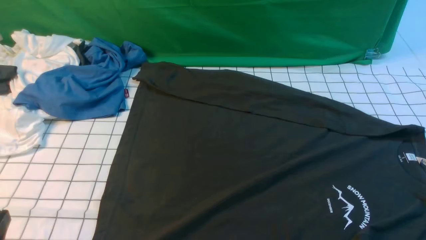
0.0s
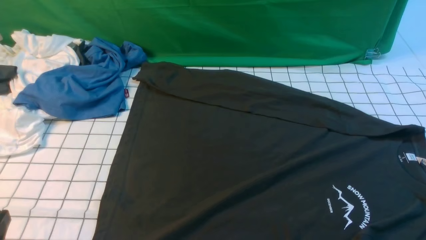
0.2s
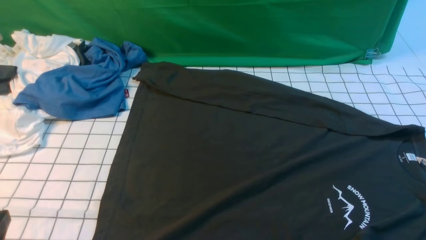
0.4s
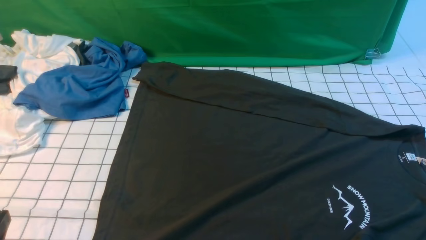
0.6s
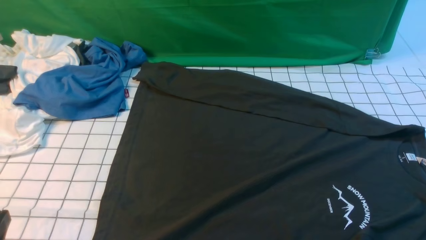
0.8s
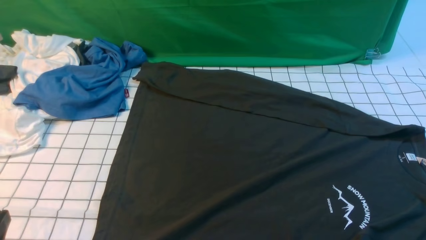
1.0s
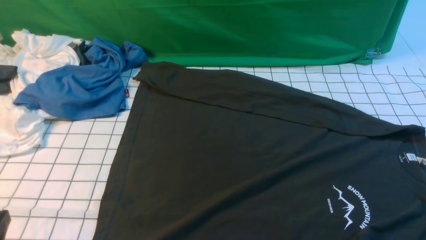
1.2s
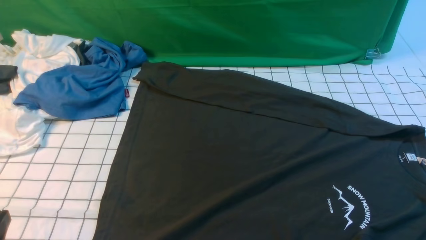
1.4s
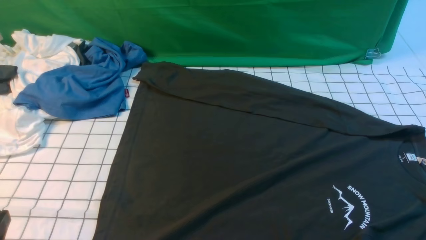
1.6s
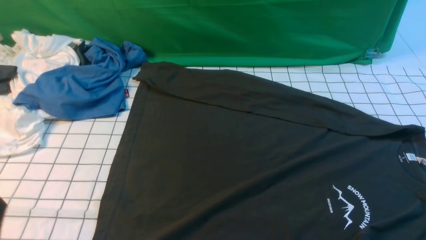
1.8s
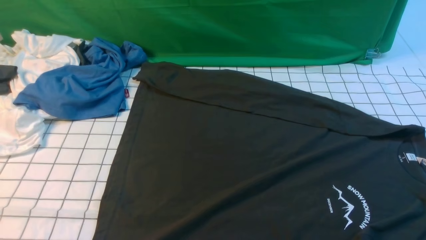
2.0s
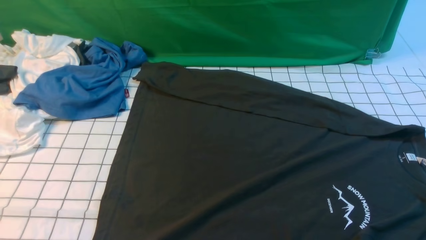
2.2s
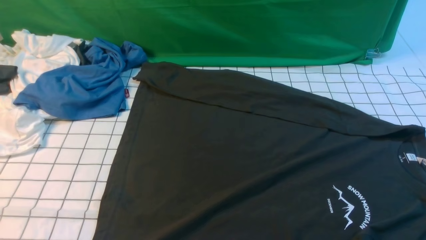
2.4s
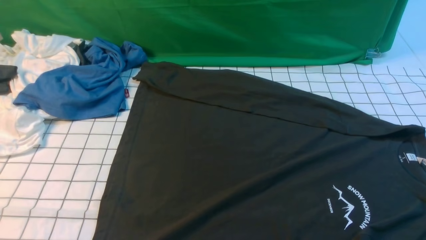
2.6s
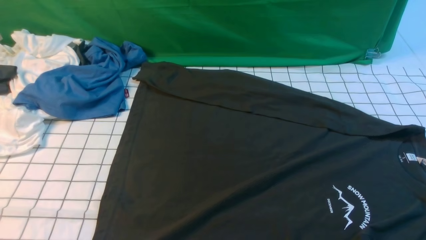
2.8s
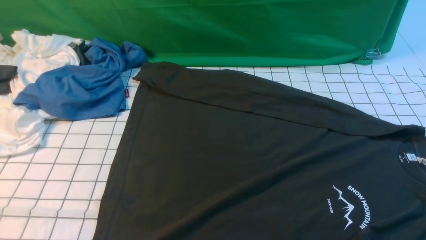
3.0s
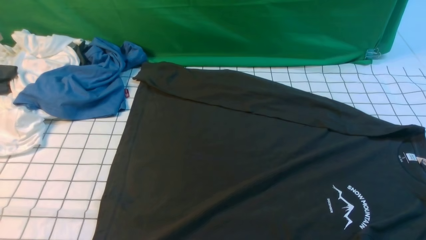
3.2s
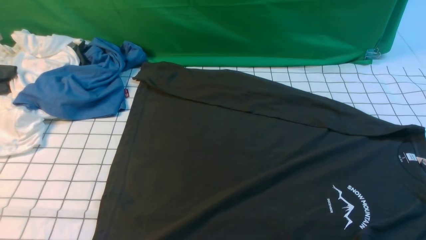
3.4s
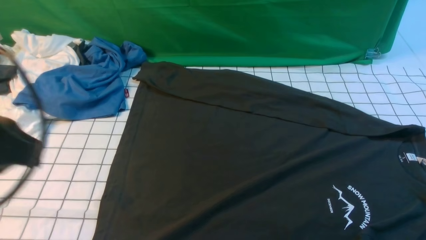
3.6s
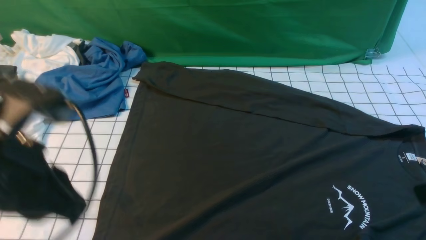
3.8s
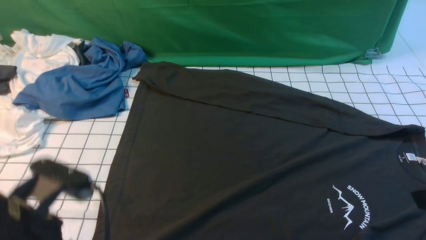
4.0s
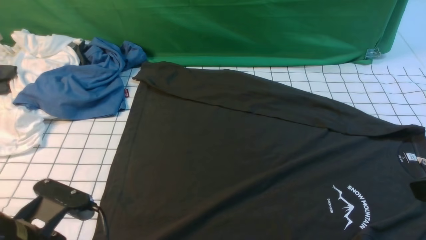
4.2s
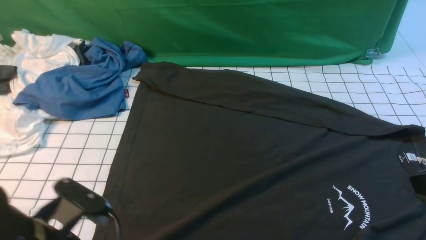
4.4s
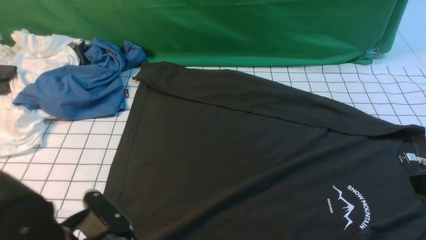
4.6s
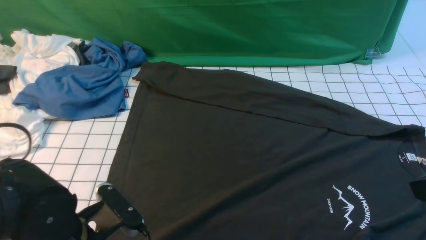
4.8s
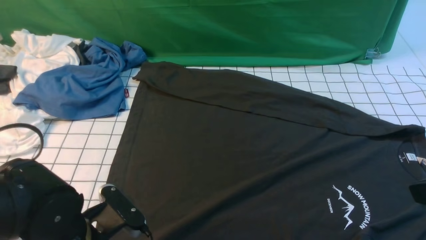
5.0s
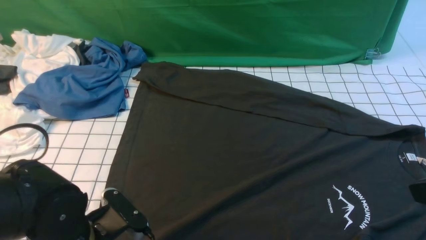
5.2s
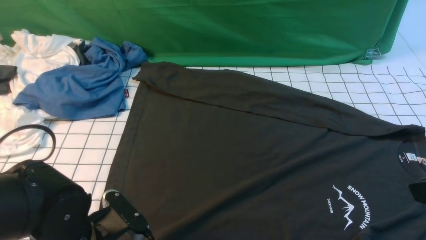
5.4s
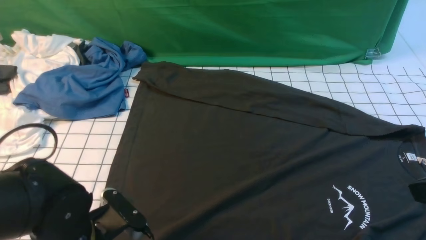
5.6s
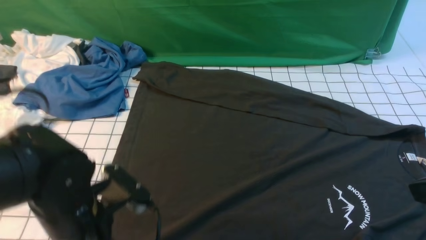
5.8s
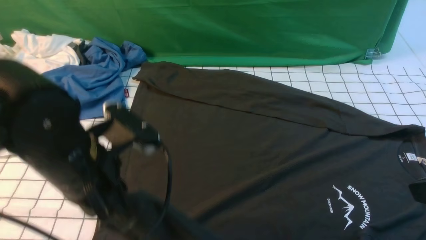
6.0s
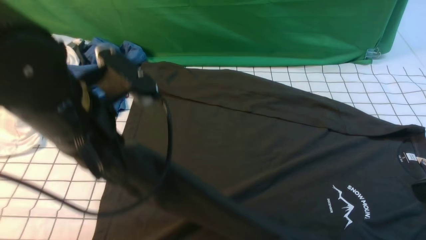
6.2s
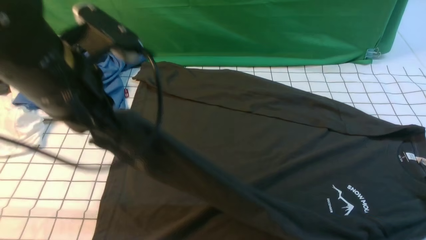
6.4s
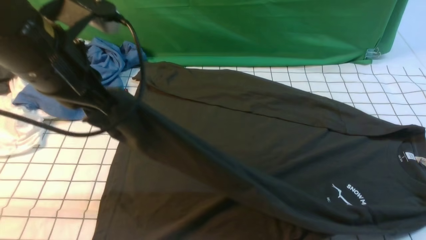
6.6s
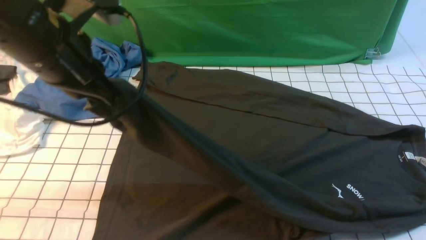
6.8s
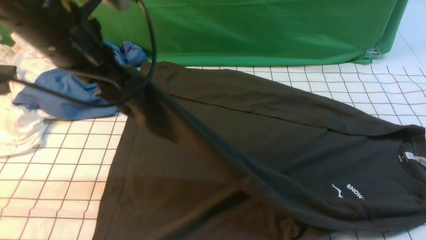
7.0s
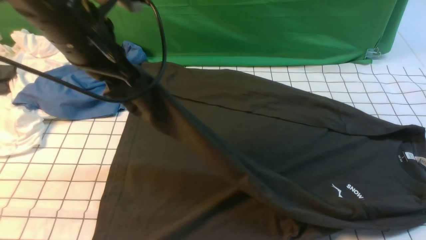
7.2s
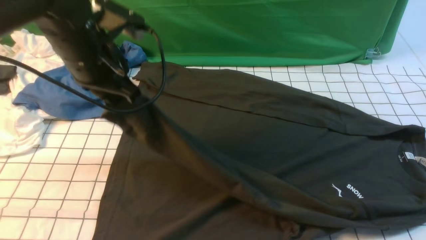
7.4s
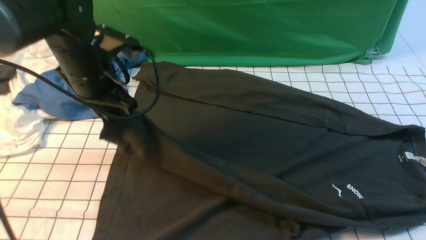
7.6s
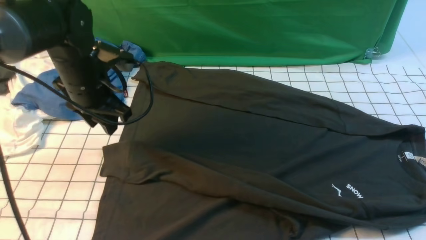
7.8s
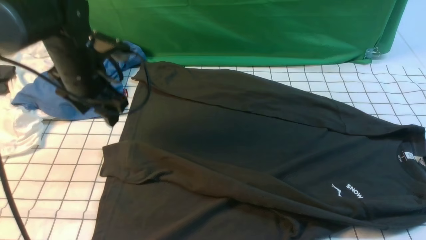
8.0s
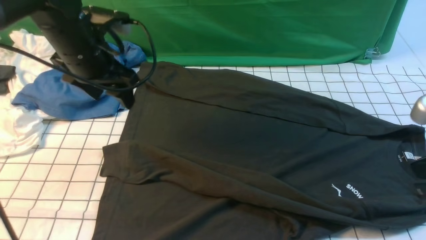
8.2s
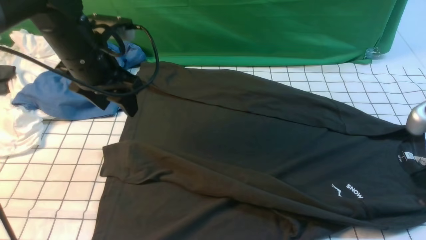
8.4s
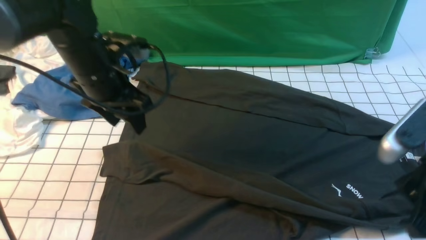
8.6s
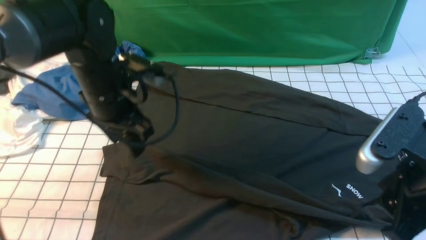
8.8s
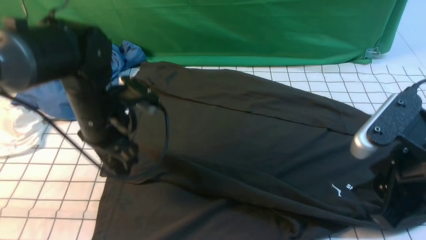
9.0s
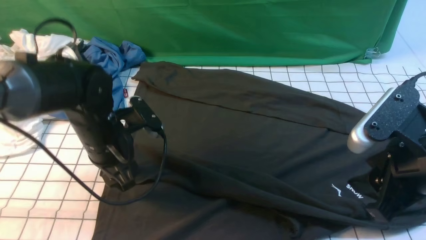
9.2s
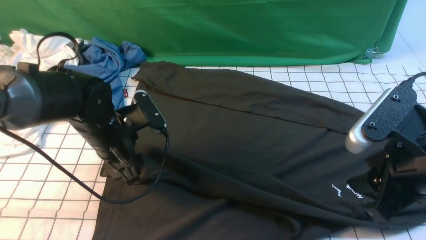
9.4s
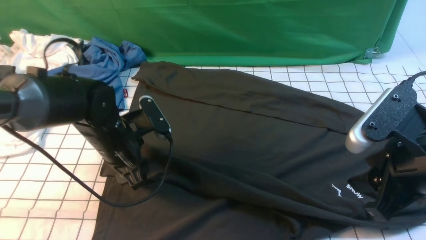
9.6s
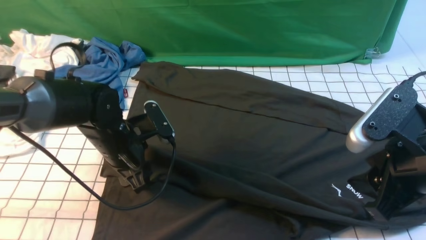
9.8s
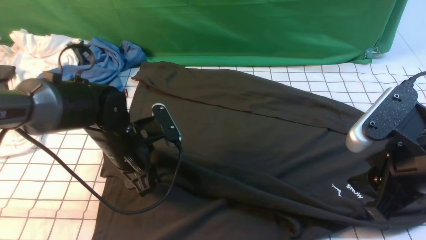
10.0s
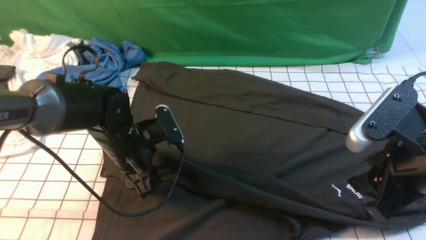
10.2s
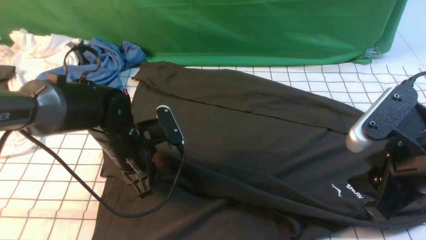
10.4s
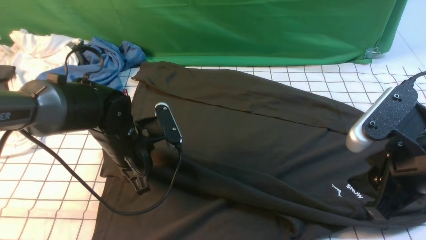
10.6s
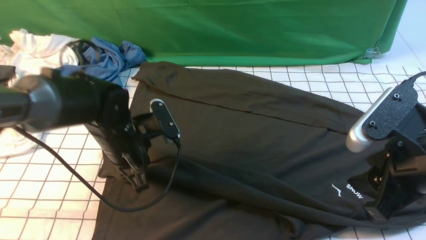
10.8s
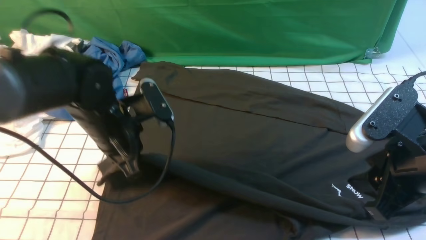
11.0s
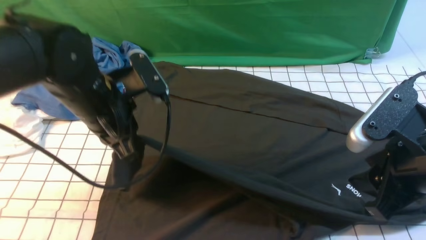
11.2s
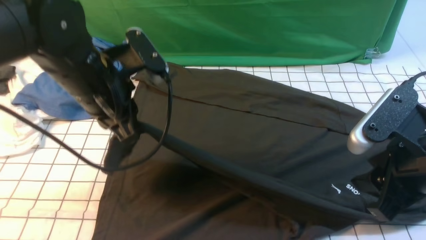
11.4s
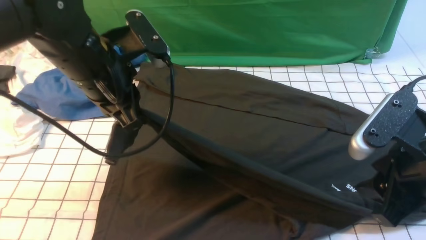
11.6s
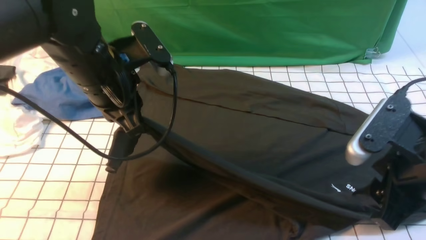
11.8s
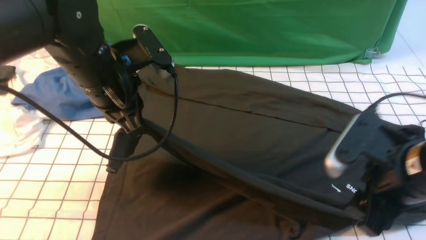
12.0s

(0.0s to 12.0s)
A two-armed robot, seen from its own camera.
Step, 0.0s - 5.4s: use the left arm to clamp the cuff closest to it.
3.0s - 4.4s: The left gripper is displaced downward, forward and to the right by approximately 15 cm, and opens.
4.4s - 6.0s: The left gripper travels upward and forward by roughly 10 cm, and closes.
6.0s - 7.6s: The left gripper moves forward, some 15 cm.
7.6s - 9.0s: The left gripper heads downward, covering approximately 5 cm, and opens; the right gripper travels to the left by about 5 cm, and opens up.
9.0s - 10.4s: The left gripper is displaced downward by some 5 cm, and closes.
10.4s - 12.0s: The left gripper is displaced upward by about 15 cm.

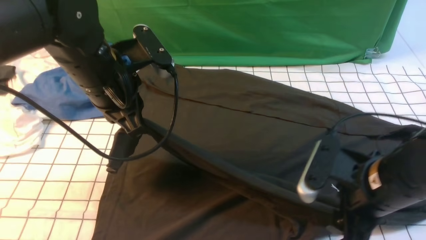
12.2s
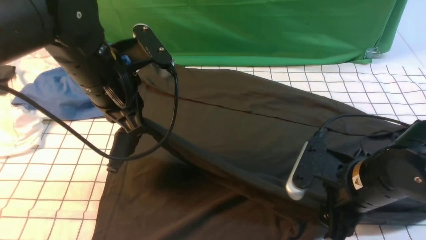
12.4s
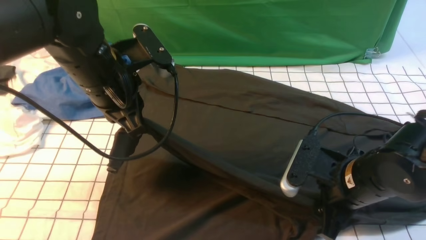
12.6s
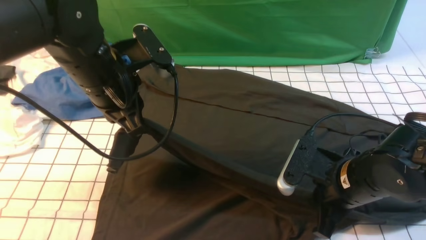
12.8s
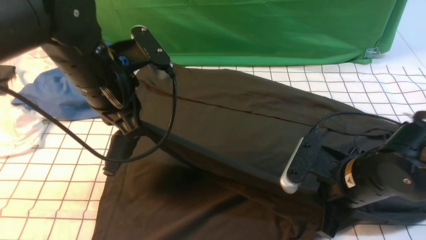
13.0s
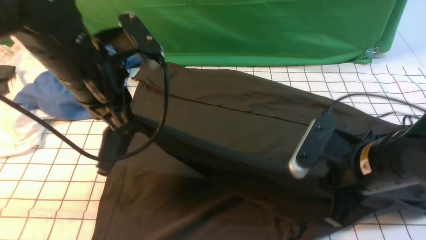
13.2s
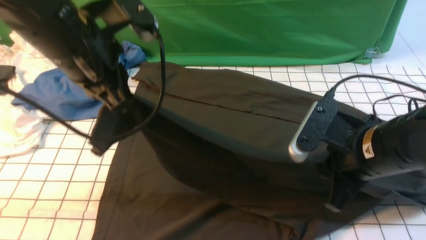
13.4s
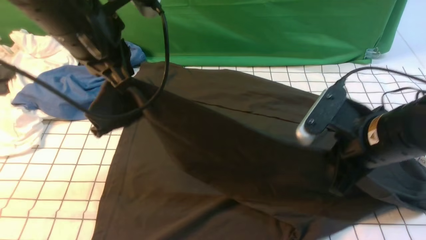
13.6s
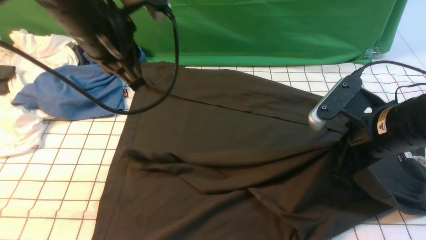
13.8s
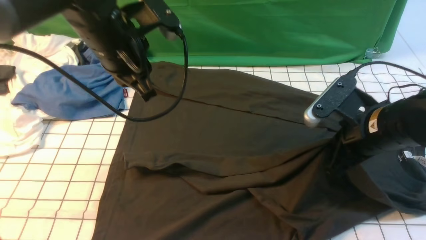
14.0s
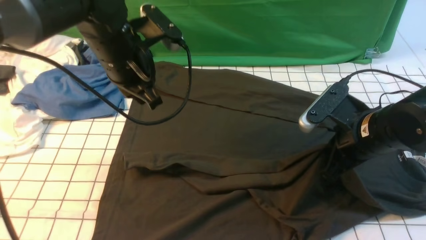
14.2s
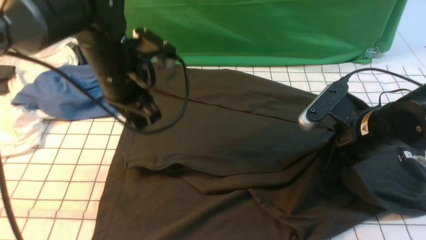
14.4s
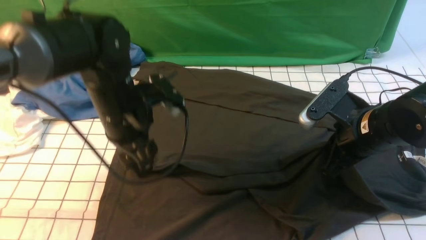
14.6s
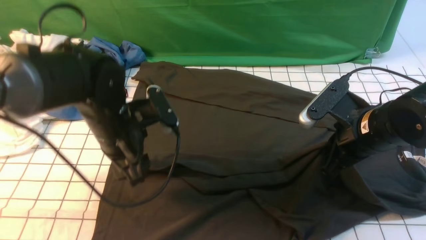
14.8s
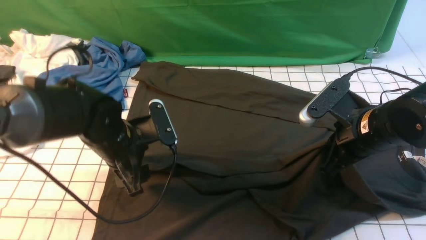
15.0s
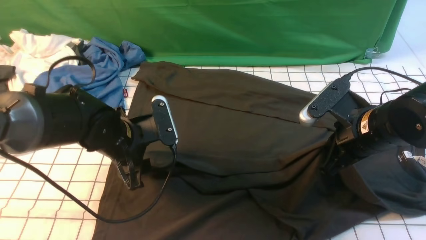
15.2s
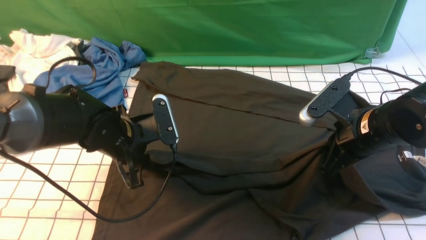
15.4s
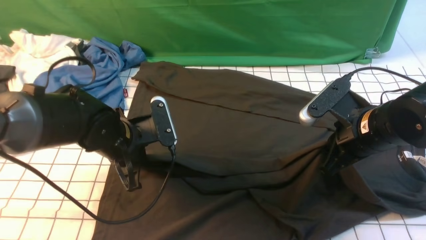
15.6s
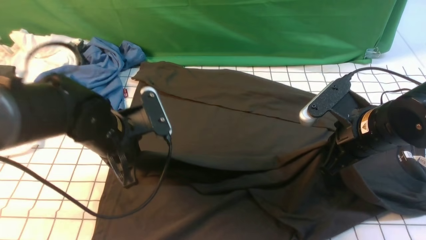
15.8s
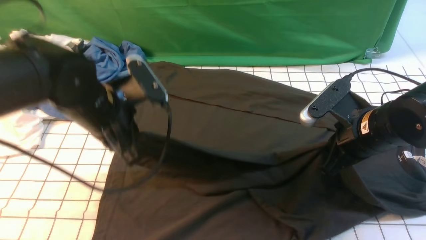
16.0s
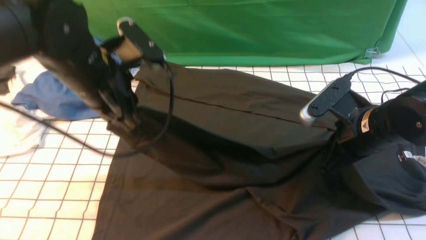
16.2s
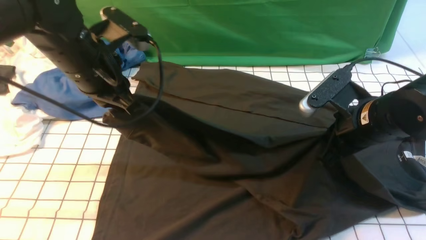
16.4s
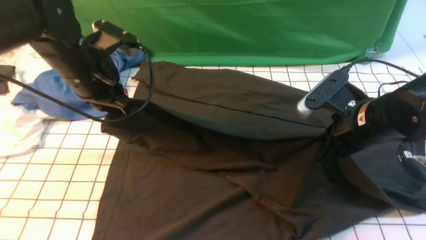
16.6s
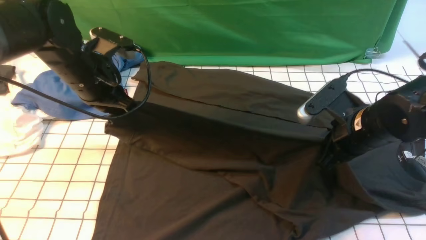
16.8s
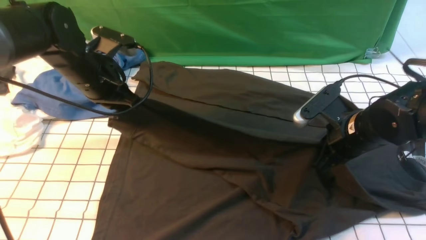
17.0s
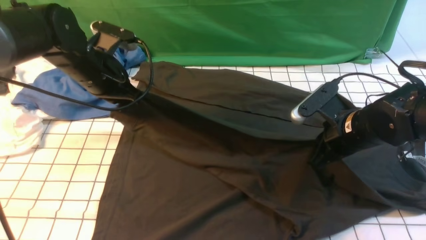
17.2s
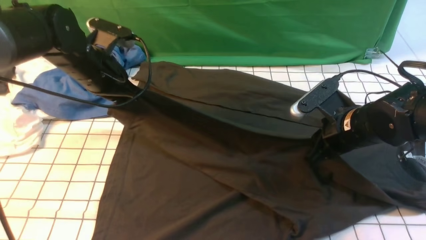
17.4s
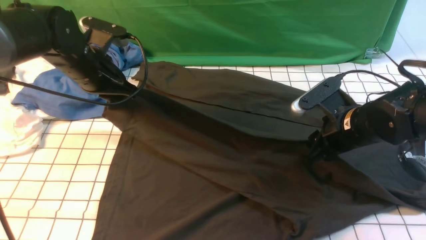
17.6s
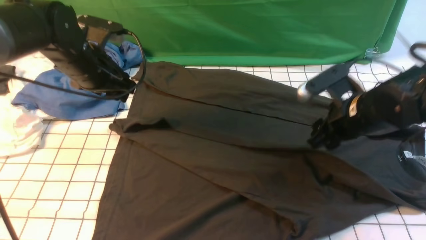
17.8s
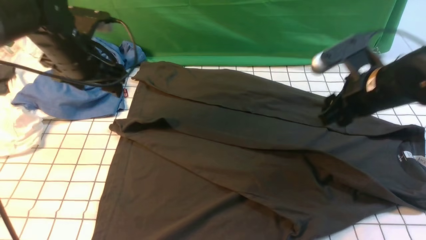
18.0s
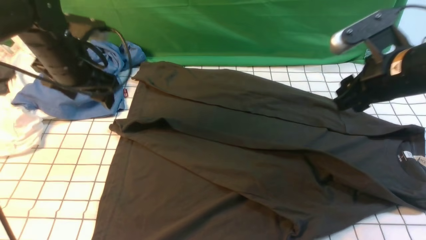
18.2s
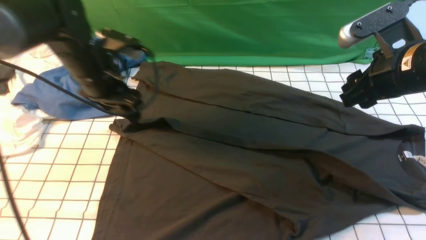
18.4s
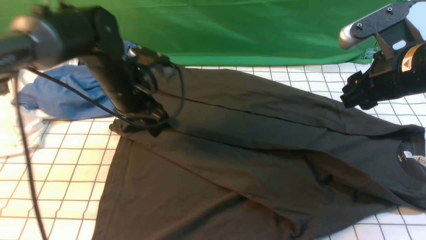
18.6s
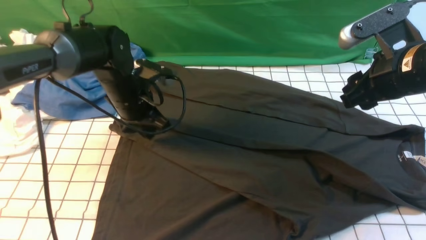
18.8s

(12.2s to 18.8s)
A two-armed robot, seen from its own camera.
12.2s - 13.8s: The right gripper heads forward, covering roughly 5 cm, and closes. Meanwhile the left gripper changes place by some 5 cm.
13.8s - 15.4s: The left gripper travels downward by some 15 cm, and opens.
15.4s - 17.2s: The left gripper heads forward, upward and to the left, covering some 10 cm, and closes.
17.2s - 18.8s: The right gripper travels upward by approximately 10 cm, and opens its fingers. The left gripper ends up about 5 cm from where it was, and opens and closes again.
